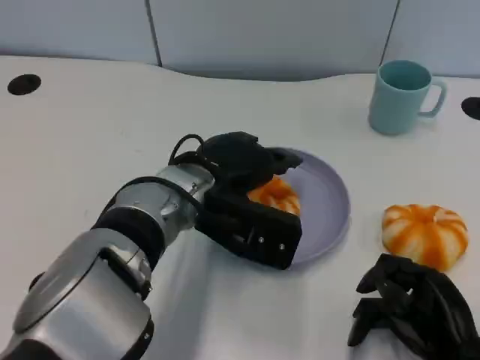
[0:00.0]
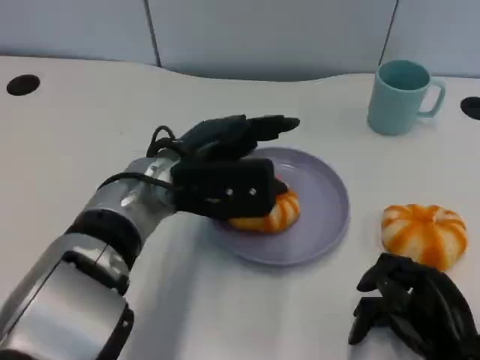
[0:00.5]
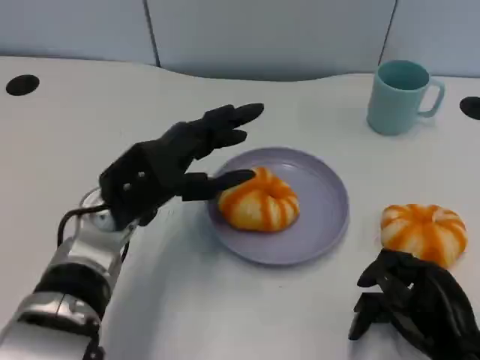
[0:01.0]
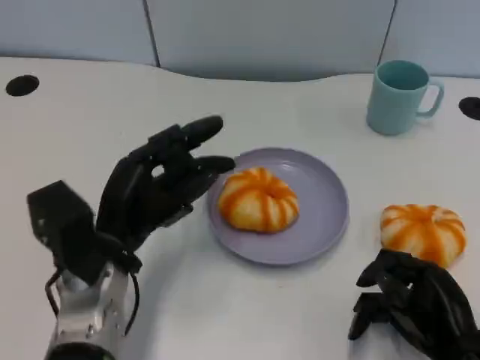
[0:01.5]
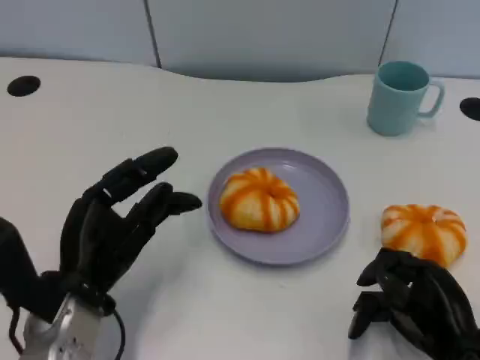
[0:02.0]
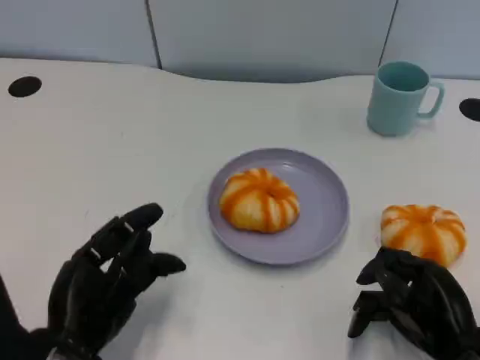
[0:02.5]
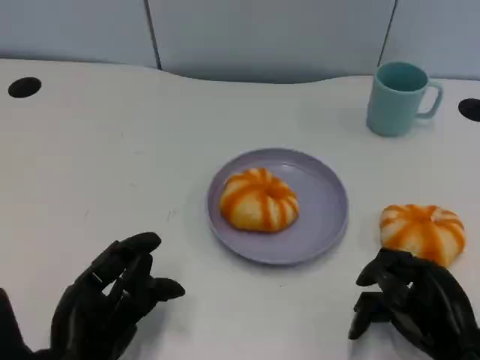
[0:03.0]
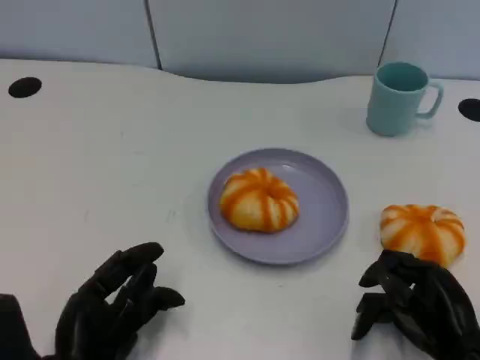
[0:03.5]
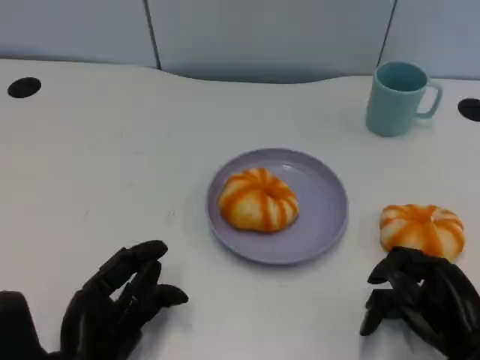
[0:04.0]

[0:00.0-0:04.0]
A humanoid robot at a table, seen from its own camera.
Task of the whole recording: Grasp the bread from the table and place it into the plate.
0:00.0 to 0:02.0: The left hand moves to the left, backward and downward, about 15 cm.
0:02.0 to 0:04.0: The left hand is displaced backward by about 5 cm.

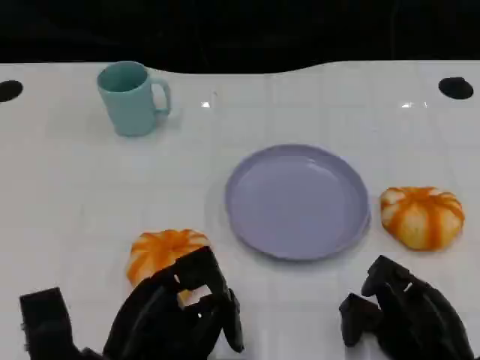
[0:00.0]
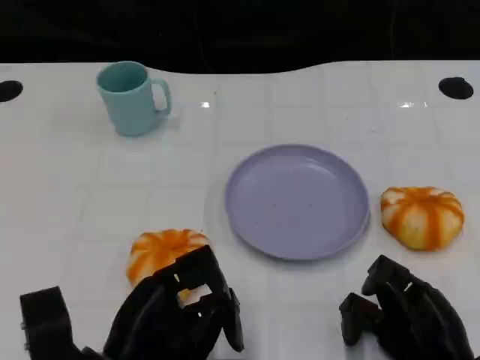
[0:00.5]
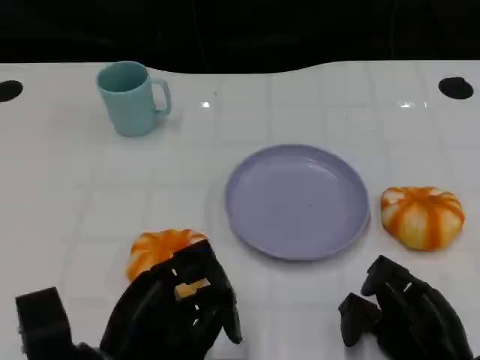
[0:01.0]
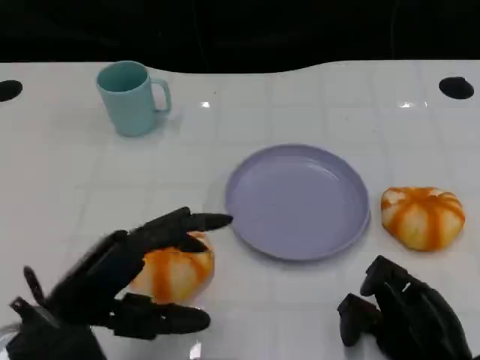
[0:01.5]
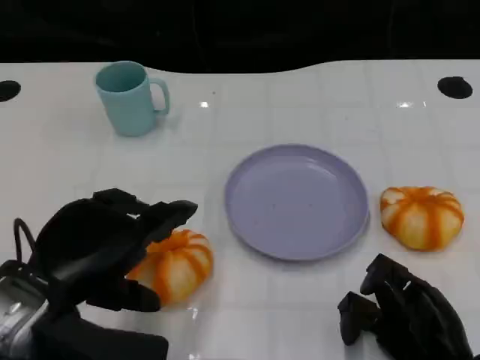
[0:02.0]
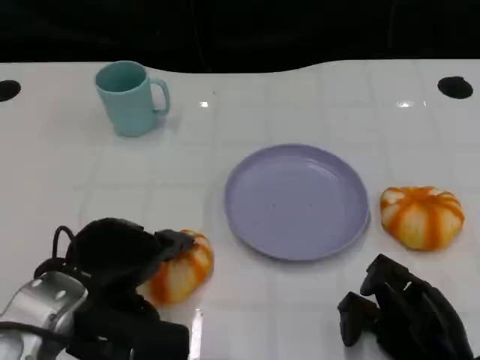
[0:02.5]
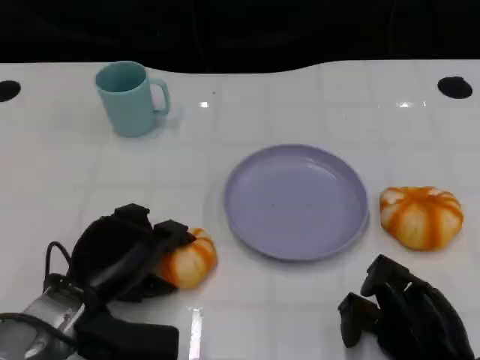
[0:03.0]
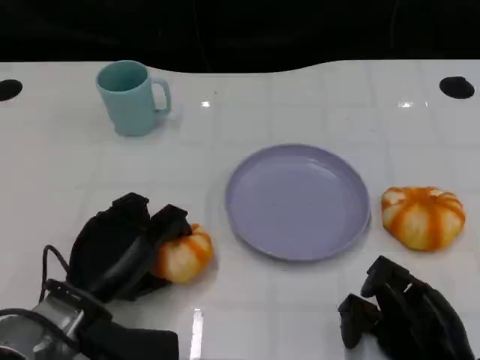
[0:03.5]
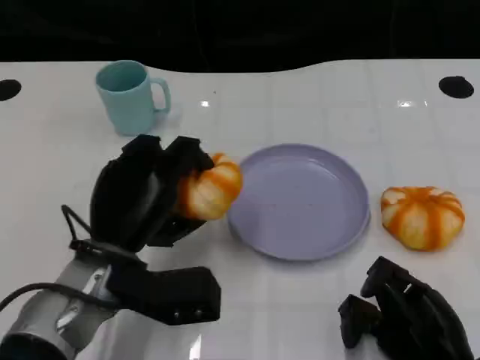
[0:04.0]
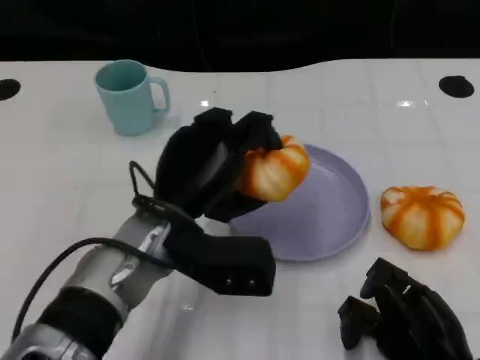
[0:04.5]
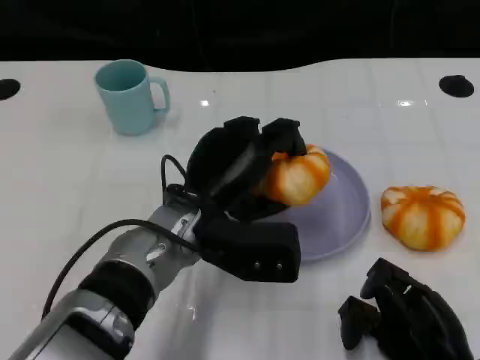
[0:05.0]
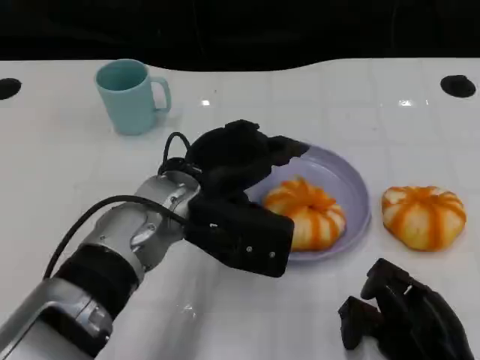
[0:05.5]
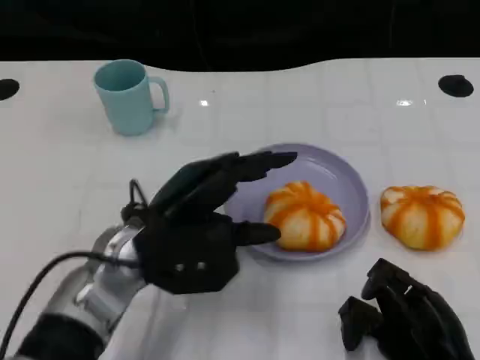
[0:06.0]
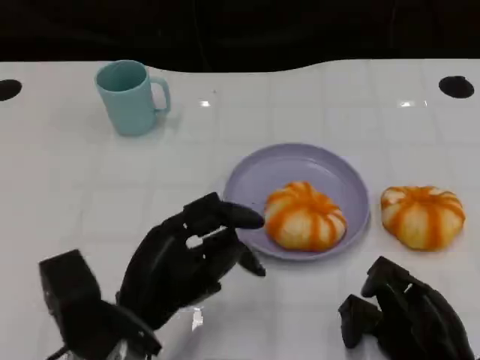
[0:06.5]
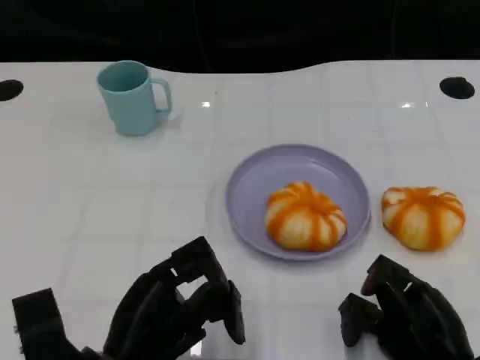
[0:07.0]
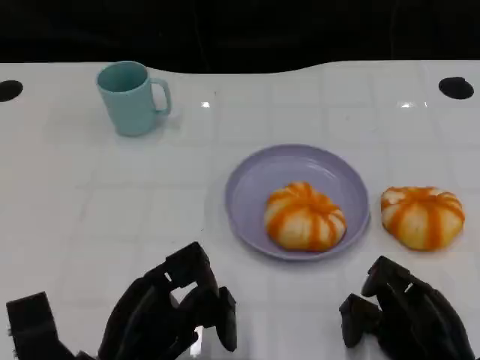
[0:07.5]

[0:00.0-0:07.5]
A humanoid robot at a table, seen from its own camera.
Task of the whole recording: Grasp the bread from the table and place it into the plate.
0:00.0 to 0:02.0: The left hand moves upward, about 10 cm.
0:02.0 to 0:04.0: The left hand shifts some 10 cm forward, to the right and downward.
0:04.0 to 0:05.5: The left hand is displaced to the right and upward by about 10 cm.
0:05.5 to 0:07.5: The left hand moves backward, downward and to the left, some 20 cm.

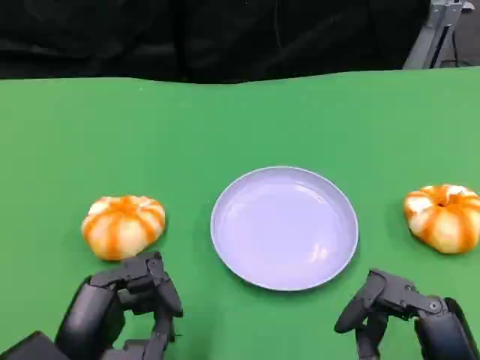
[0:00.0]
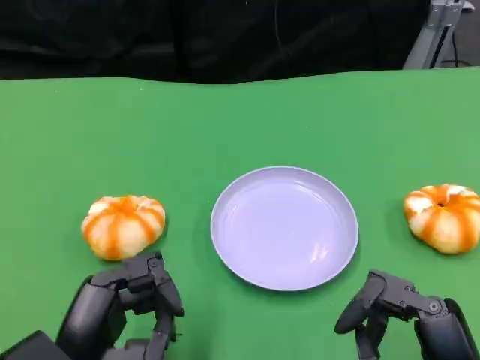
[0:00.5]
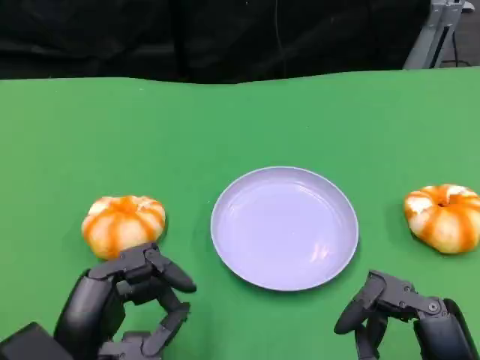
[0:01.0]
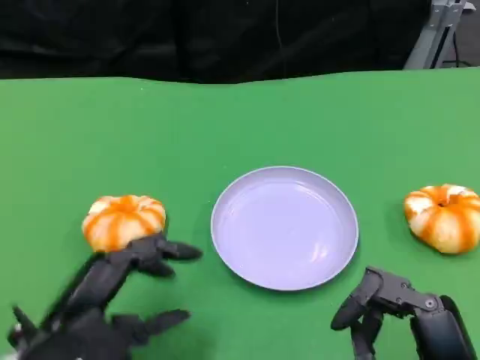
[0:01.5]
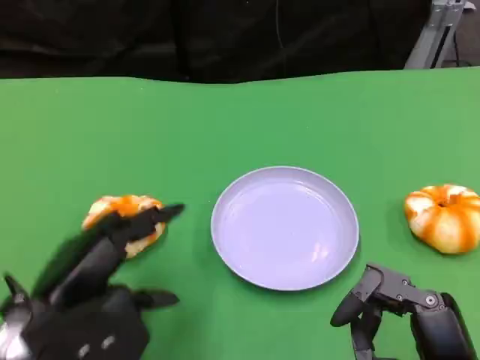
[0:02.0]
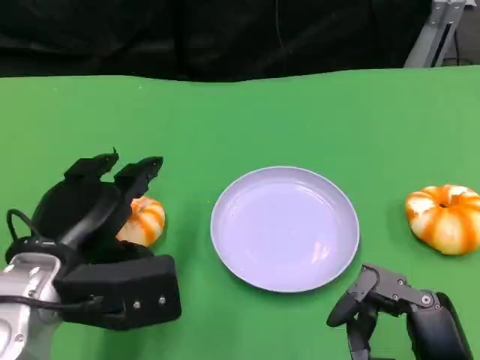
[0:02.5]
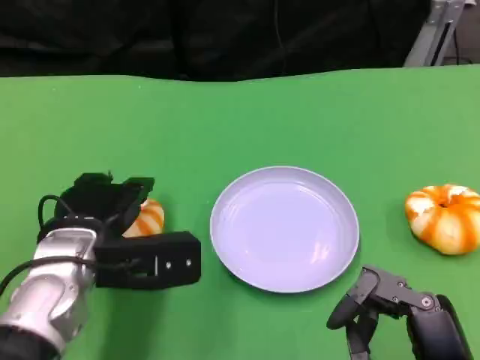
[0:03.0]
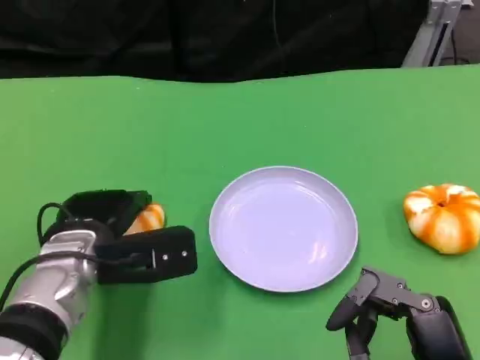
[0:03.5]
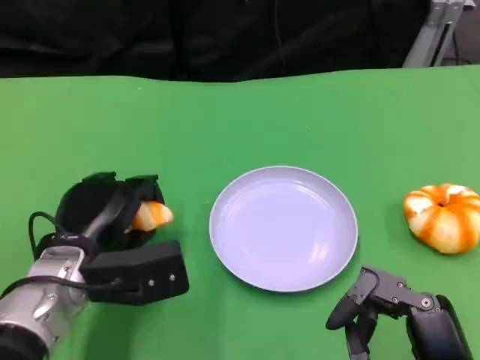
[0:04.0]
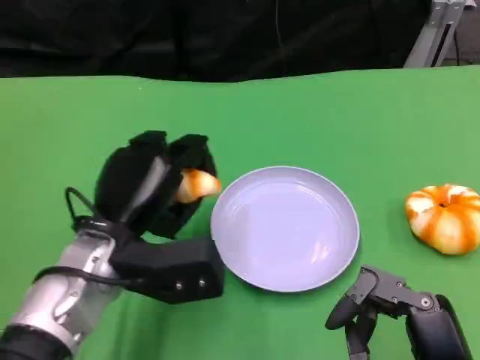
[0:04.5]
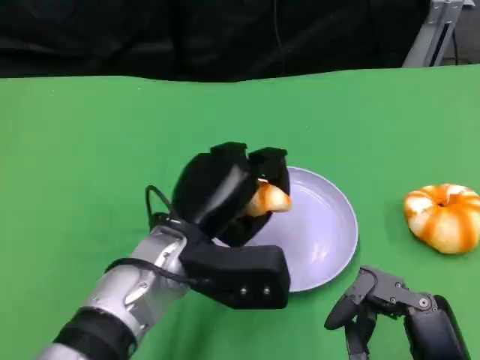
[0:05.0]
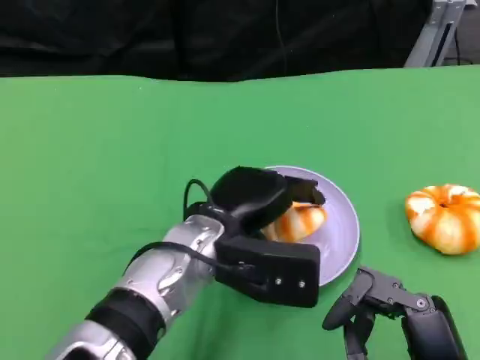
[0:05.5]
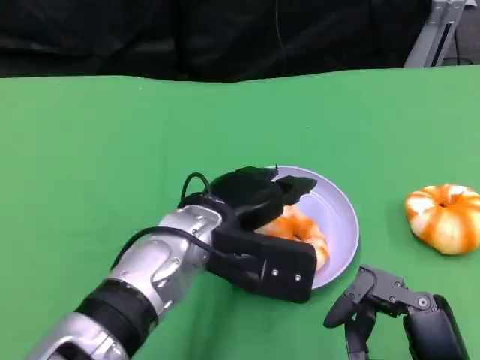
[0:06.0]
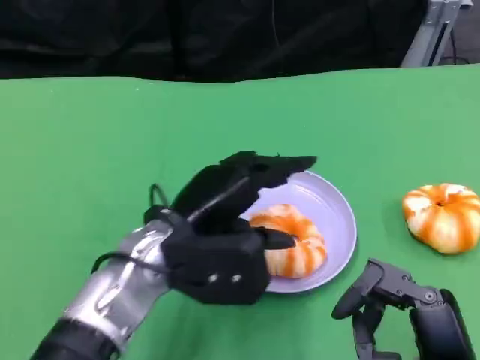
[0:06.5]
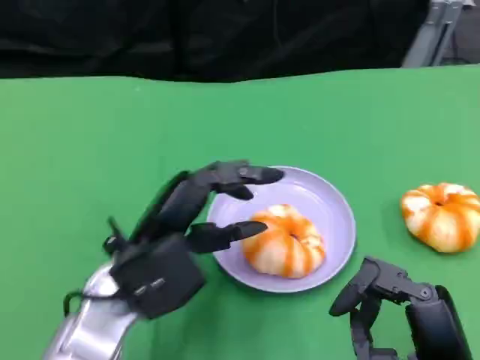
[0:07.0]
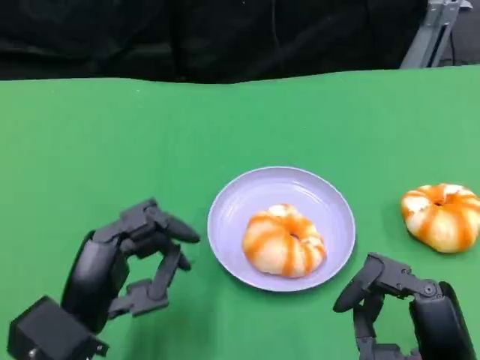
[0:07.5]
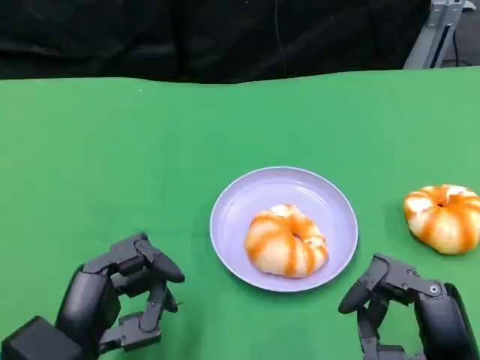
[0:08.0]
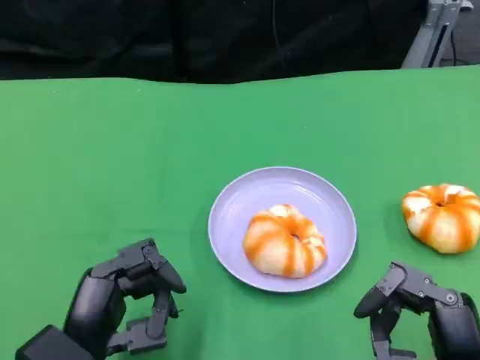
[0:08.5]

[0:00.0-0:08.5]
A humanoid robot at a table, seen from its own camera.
Task of the whole recording: Grasp the bread from the table and place it into the plate.
0:00.0 to 0:02.0: The left hand goes approximately 5 cm forward.
0:02.0 to 0:04.0: The left hand moves forward, some 5 cm.
0:04.0 to 0:06.5: The left hand travels to the right by roughly 10 cm.
0:06.5 to 0:08.5: The left hand shifts approximately 15 cm backward, to the left and downward.

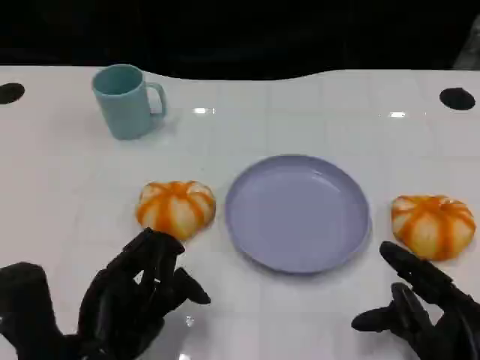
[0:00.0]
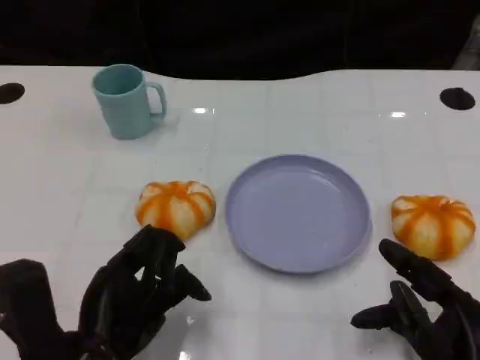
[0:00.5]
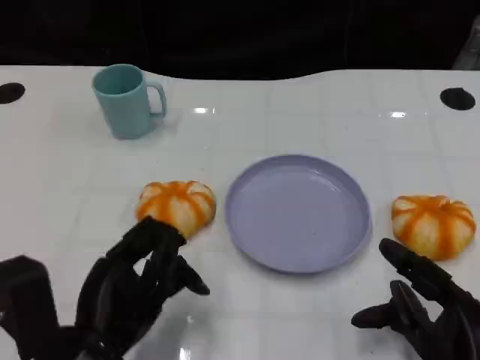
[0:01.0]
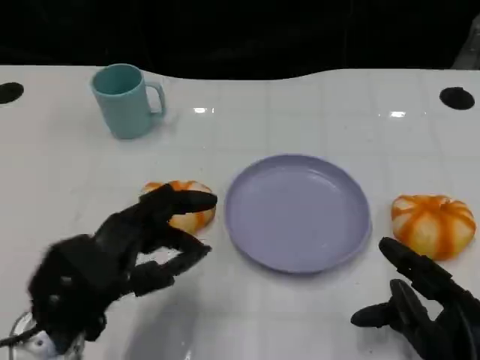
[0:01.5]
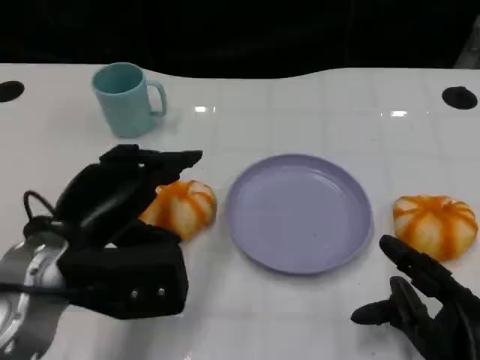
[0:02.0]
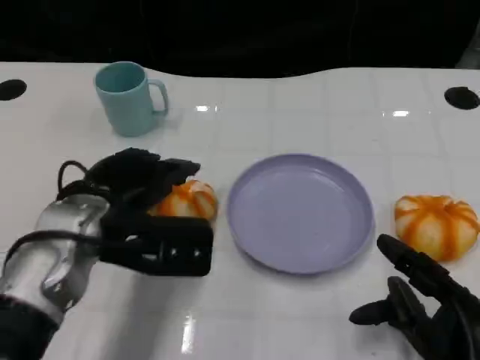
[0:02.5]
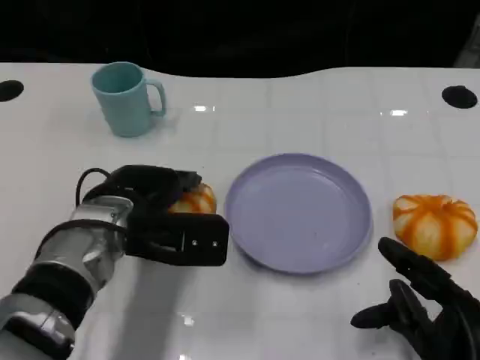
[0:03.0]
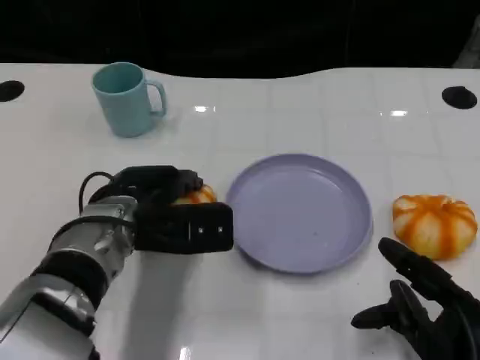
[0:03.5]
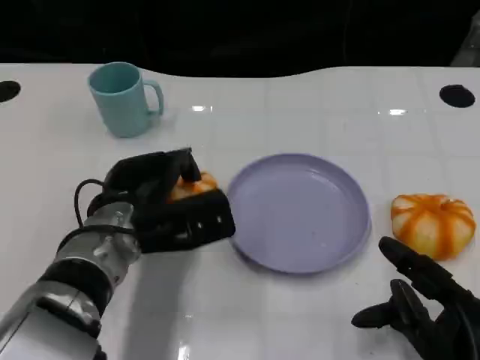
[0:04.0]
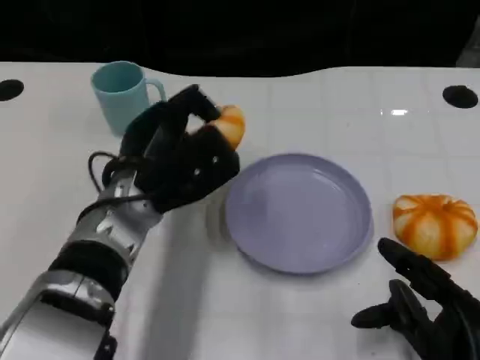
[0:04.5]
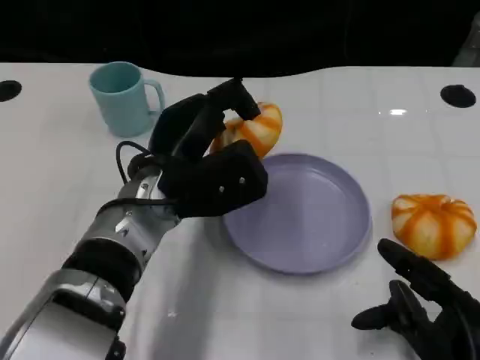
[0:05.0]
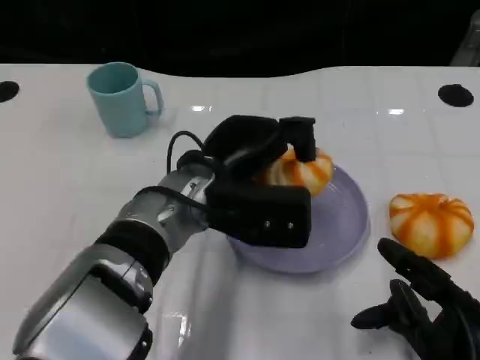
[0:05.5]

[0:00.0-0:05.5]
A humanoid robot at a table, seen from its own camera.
Task of the whole recording: Grasp the bread from the table and place it into the plate.
0:00.0 to 0:02.0: The left hand is displaced forward and upward by approximately 10 cm.
0:02.0 to 0:03.5: The left hand is displaced forward and downward by roughly 10 cm.
0:03.5 to 0:05.5: The left hand travels to the right by approximately 10 cm.
